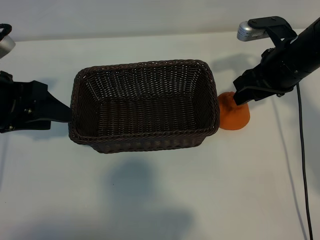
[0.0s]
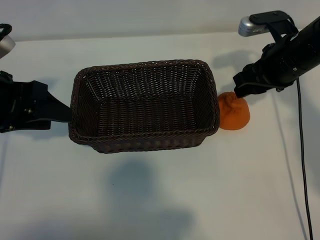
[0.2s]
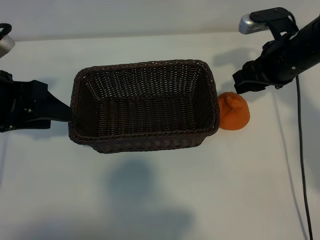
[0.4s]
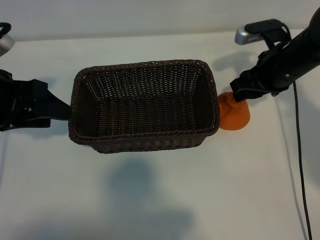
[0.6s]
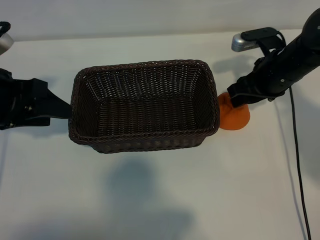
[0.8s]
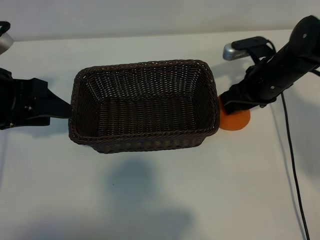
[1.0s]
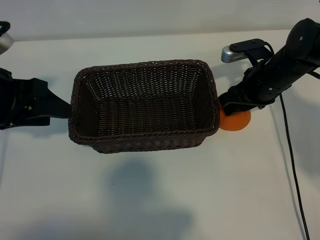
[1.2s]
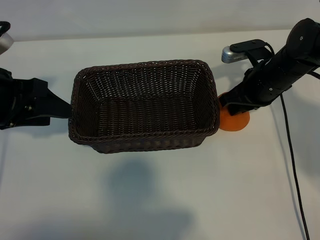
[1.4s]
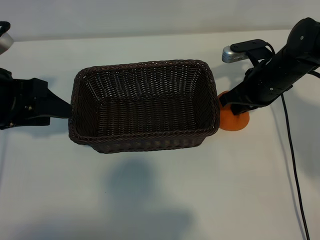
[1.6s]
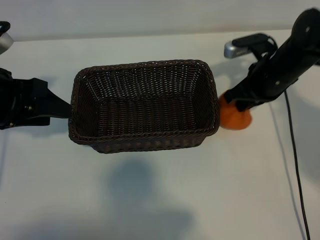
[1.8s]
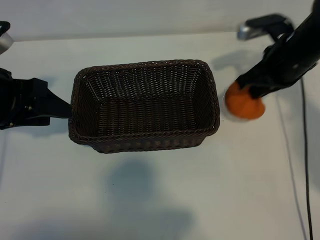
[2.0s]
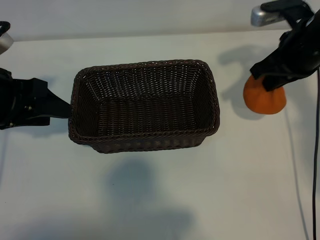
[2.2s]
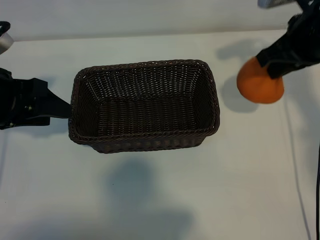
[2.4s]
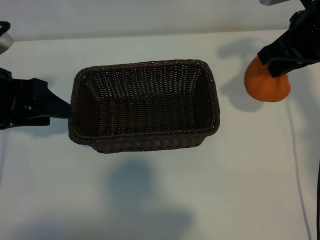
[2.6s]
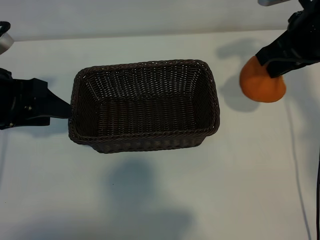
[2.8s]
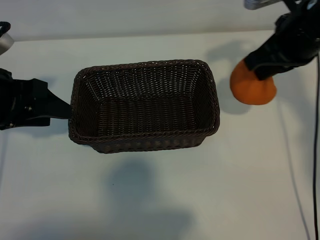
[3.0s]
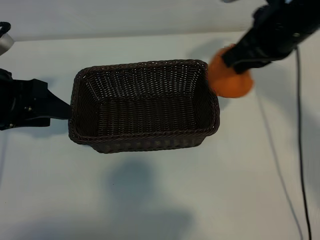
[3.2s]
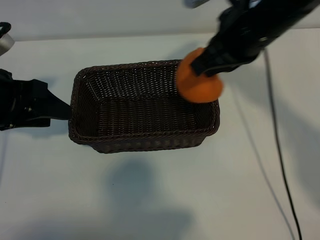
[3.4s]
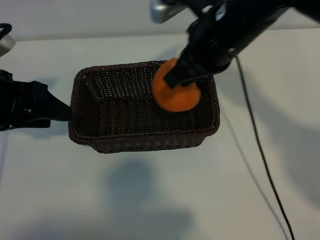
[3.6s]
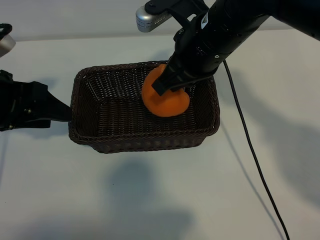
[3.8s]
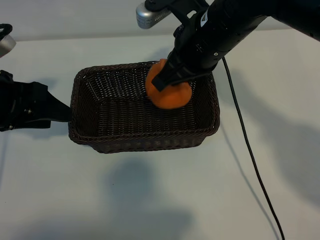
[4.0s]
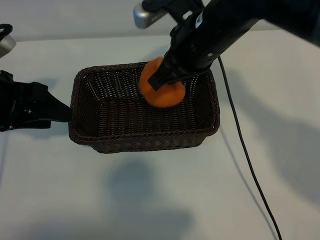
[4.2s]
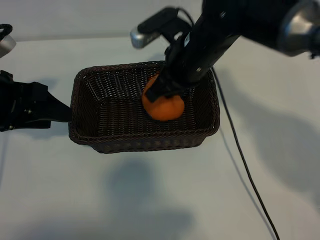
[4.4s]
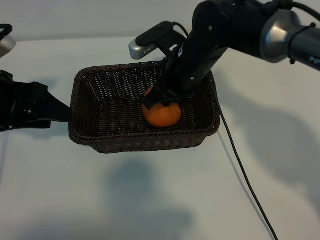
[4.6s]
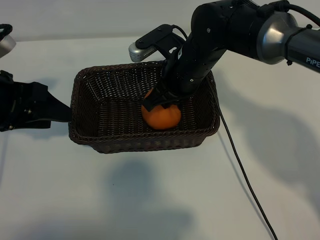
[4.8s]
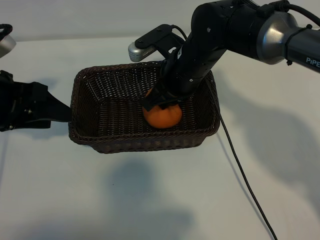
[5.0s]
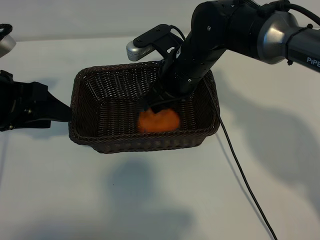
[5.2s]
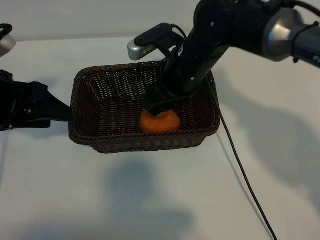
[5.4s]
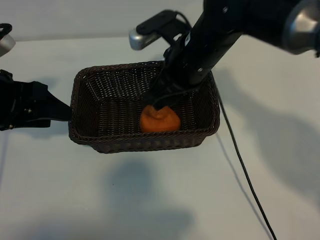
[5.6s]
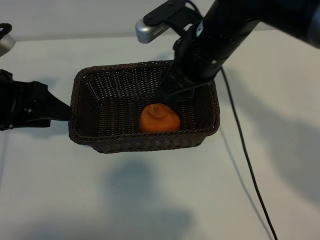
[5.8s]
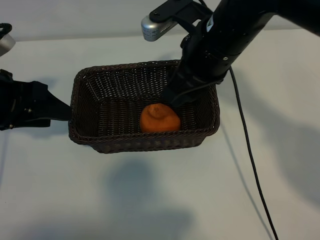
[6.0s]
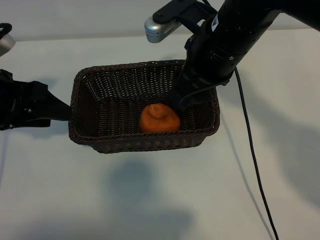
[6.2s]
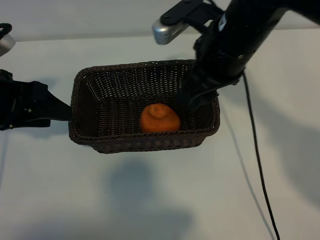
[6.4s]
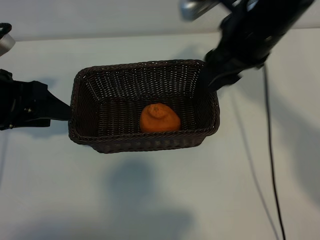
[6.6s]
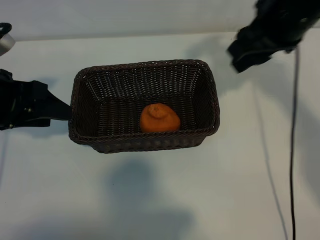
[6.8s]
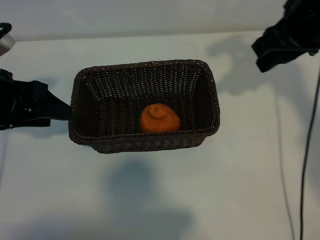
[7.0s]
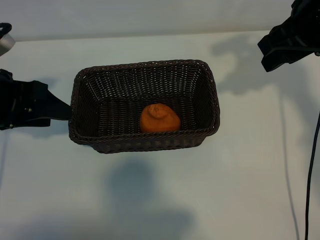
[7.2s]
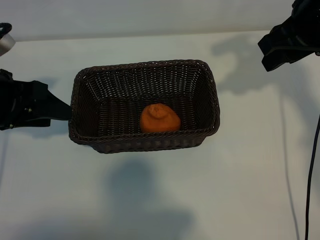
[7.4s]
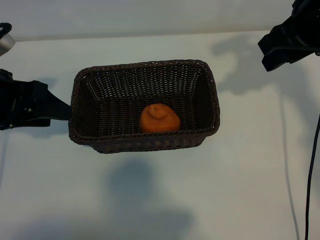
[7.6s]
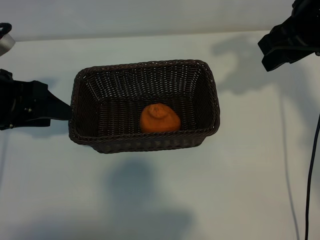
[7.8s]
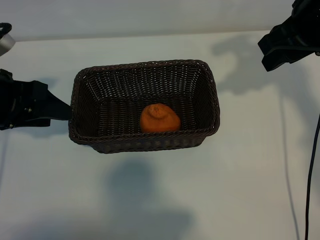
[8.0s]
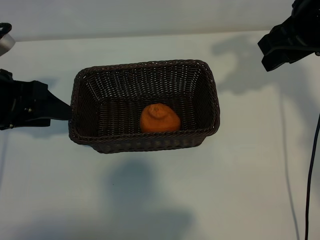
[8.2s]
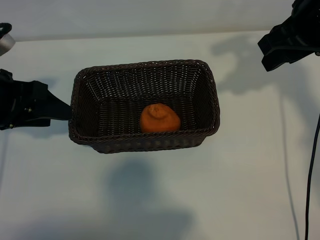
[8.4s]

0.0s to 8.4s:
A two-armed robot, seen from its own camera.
Task of the whole recording: pick up the orange and put it into the basket.
Step, 1.8s to 5.2s: Place the orange in the basket with right gripper.
